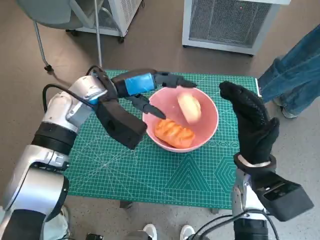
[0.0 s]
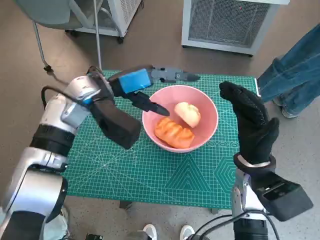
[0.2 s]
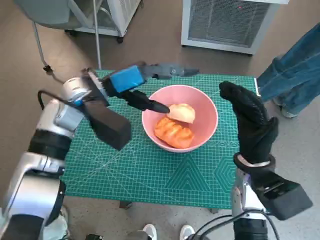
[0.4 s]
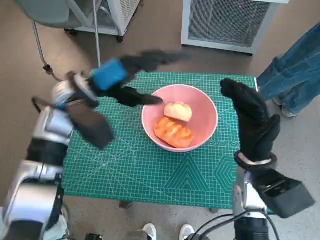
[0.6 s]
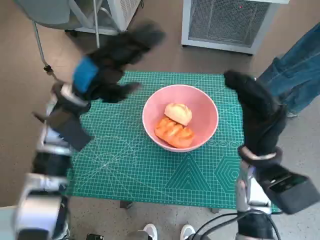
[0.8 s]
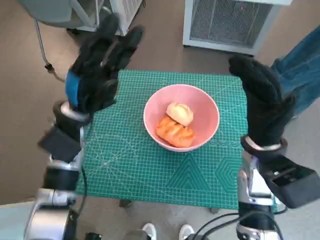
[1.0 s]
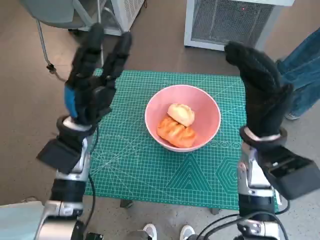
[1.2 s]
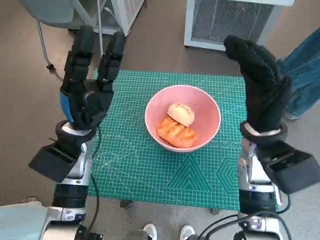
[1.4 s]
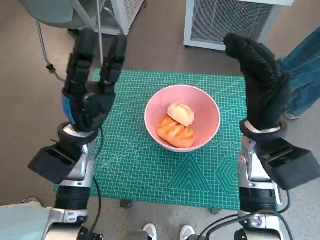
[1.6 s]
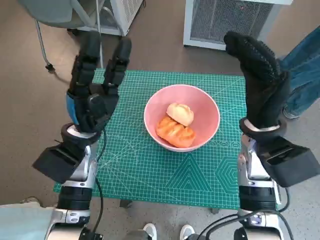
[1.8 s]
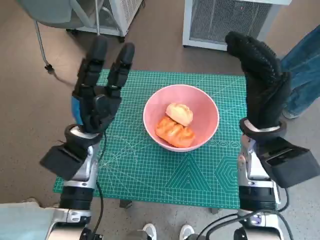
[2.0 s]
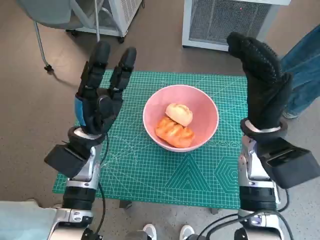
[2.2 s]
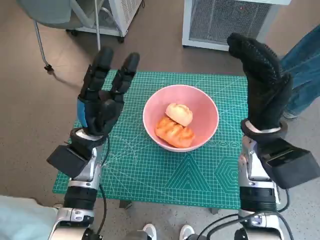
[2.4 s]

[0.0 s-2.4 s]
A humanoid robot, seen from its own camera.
Task of the whole recording: Push the bowl to the center of the table and put the bread into the bowl.
0.0 to 1.2 s: The right hand moves upward, roughly 5 cm, while the left hand goes about 10 cm downward and backward.

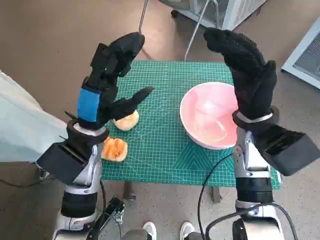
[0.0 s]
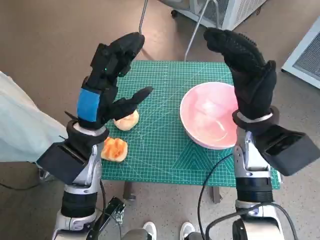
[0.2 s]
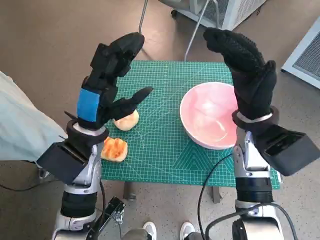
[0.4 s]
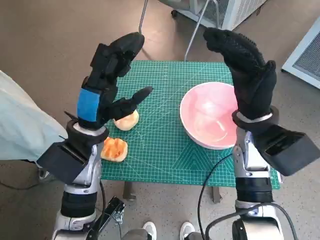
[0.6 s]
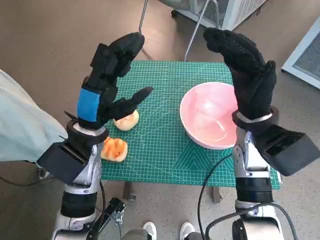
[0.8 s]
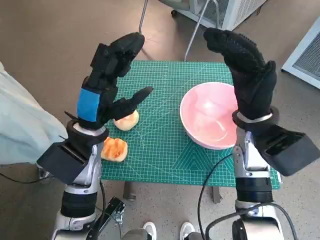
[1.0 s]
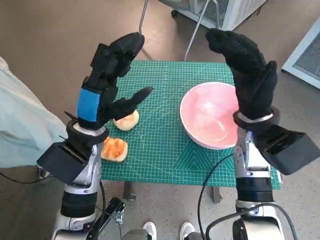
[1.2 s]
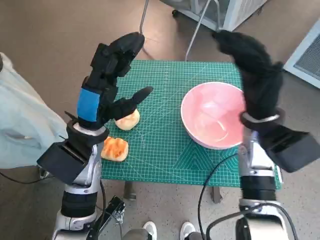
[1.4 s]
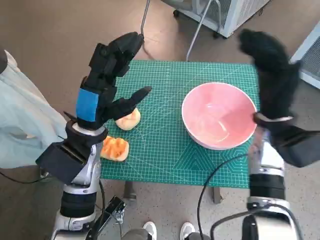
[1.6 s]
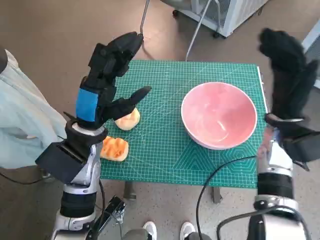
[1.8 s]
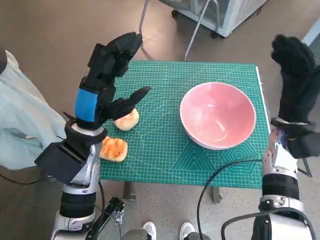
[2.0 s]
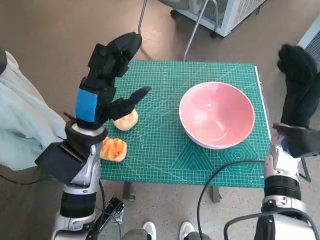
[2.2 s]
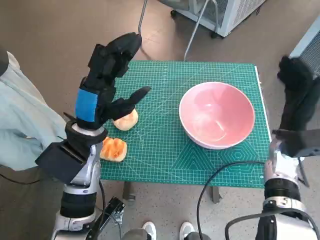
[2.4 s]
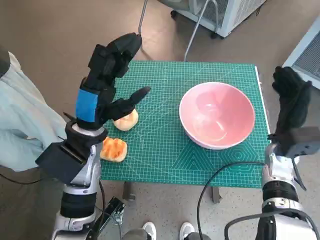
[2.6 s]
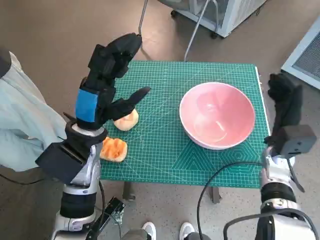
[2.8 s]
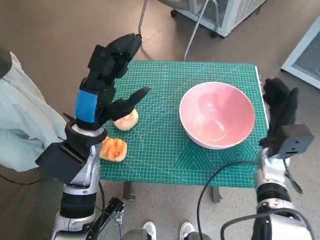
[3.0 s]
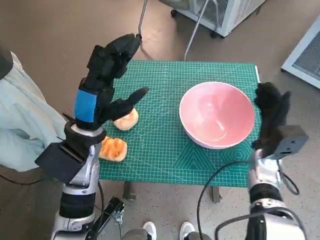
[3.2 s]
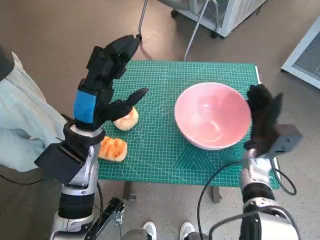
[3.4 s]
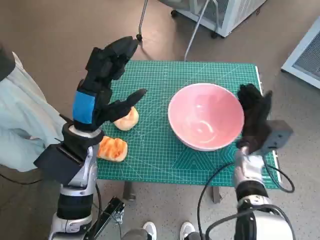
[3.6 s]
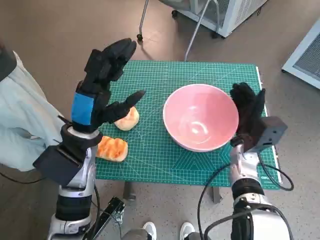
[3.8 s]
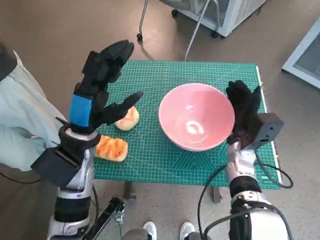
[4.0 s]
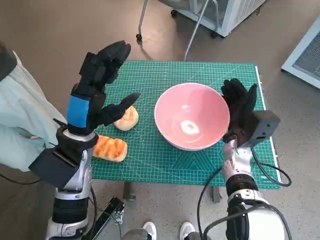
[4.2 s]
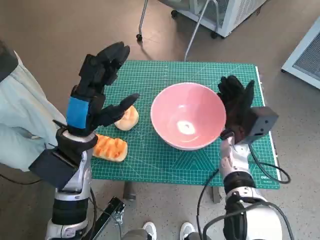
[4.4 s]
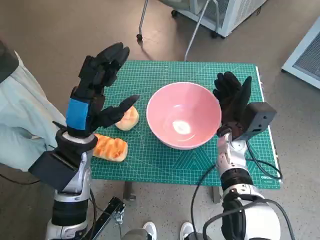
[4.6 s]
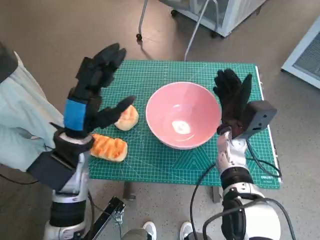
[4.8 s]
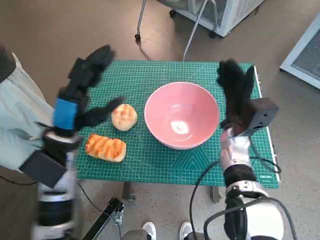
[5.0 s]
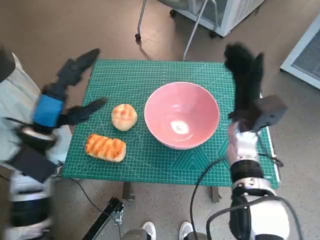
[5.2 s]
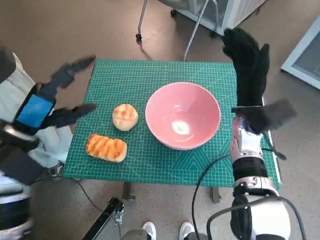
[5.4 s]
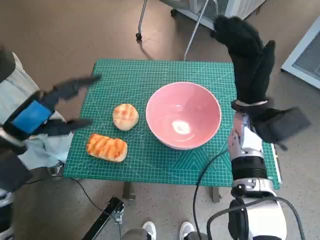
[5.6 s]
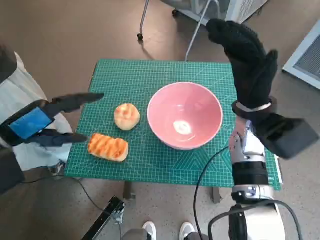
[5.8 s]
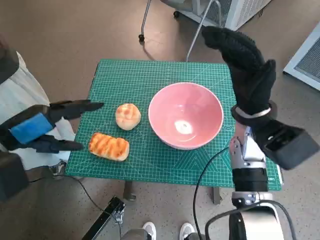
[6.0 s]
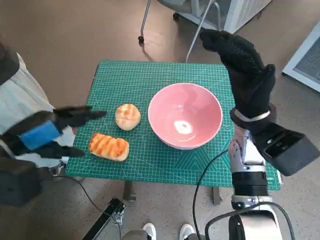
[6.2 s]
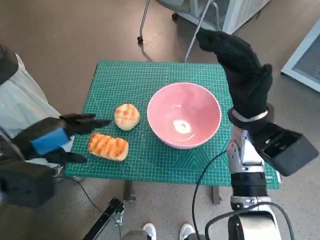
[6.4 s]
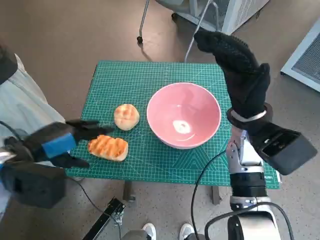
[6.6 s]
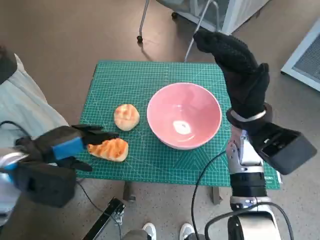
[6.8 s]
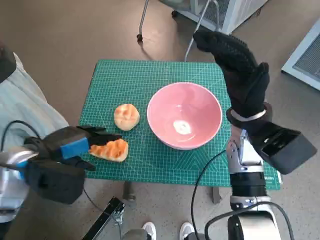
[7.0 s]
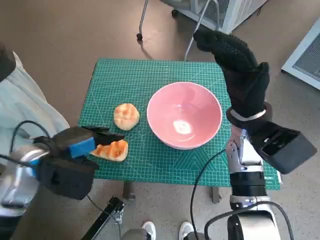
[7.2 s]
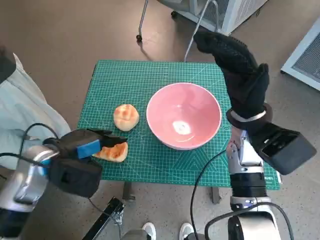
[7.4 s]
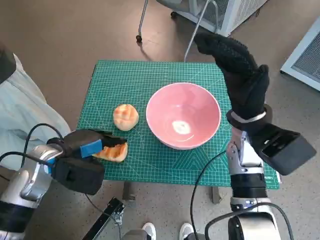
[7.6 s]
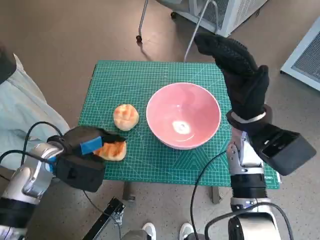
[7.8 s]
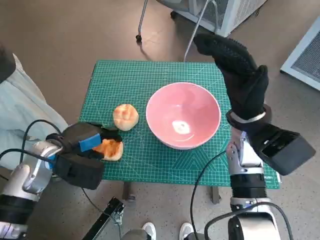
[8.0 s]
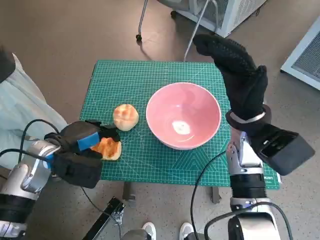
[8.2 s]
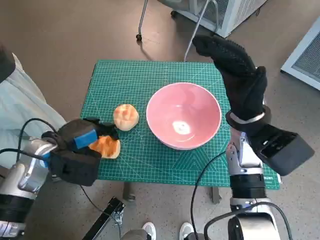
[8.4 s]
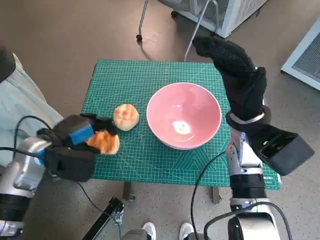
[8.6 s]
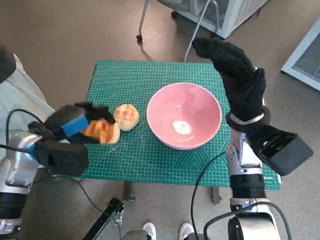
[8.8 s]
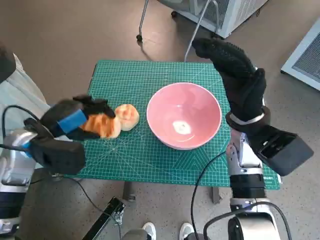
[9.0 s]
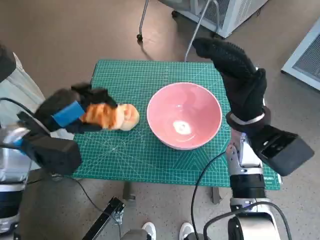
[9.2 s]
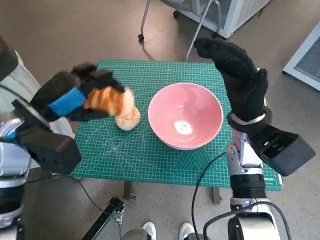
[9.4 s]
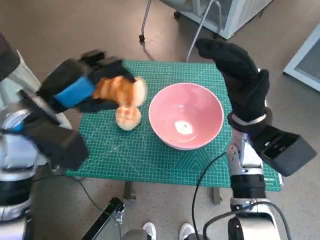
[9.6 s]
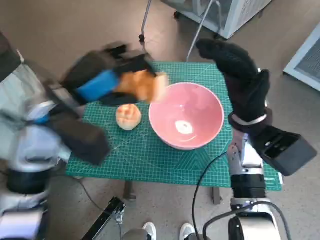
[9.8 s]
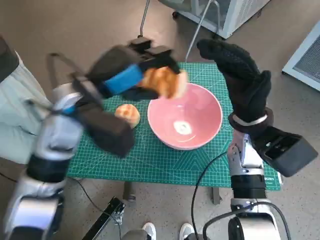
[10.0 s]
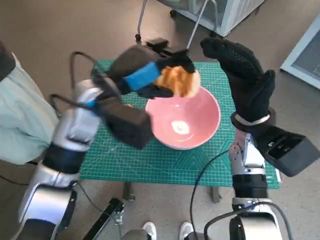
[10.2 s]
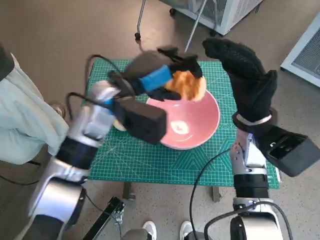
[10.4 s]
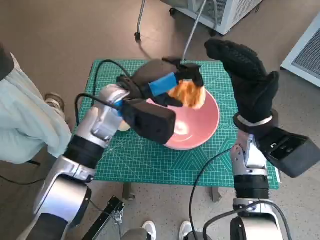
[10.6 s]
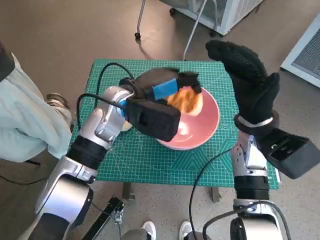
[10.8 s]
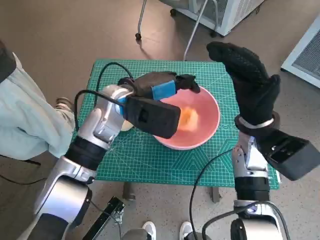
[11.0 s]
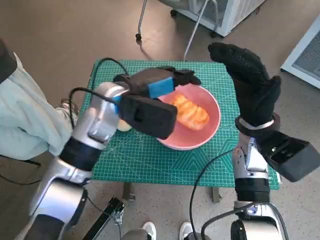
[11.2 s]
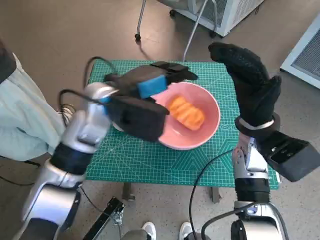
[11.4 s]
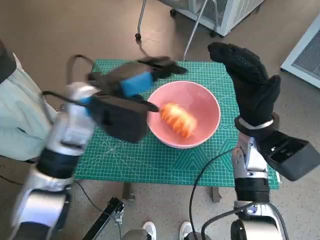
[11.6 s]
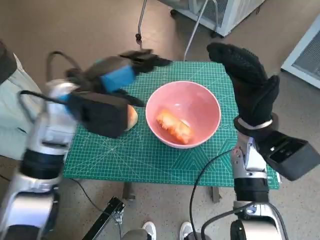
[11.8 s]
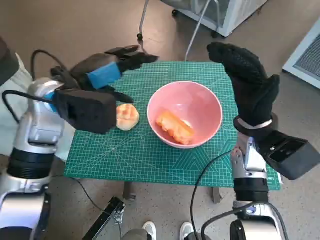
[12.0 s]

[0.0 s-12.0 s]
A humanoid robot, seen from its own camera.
Task of the whole recording: Push the bowl to the center of the table and put the bread into the bowl.
Step, 0.0 to 4.8 s: Move the pink bowl to the center of table with right hand.
Step, 5.0 to 8.0 s: Grasp the long bread with left hand.
Step, 8.2 to 11.2 s: Place the long bread in pink bowl with left hand.
1.6 to 3.0 s: The right hand travels downward by some 10 cm.
3.0 to 4.4 s: The right hand moves to the left, roughly 10 cm.
4.4 to 6.0 s: The left hand moves to the left and upward, roughly 15 cm, while the right hand heads upward, covering about 10 cm.
6.0 to 7.6 s: The left hand goes approximately 10 cm downward.
9.0 to 10.4 s: The left hand is displaced to the right and forward by roughly 15 cm.
10.4 to 12.0 s: The left hand heads to the left, covering roughly 5 cm.

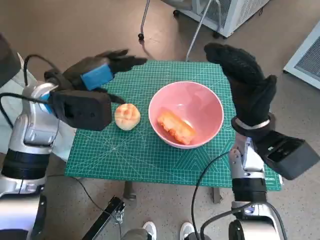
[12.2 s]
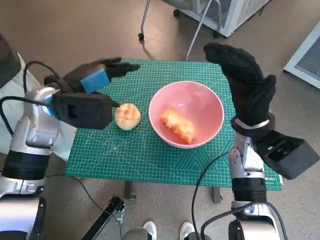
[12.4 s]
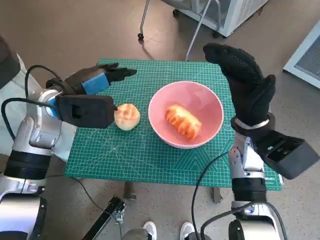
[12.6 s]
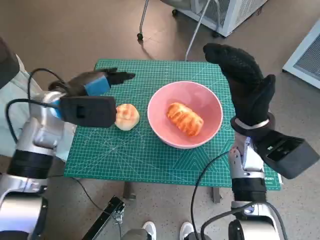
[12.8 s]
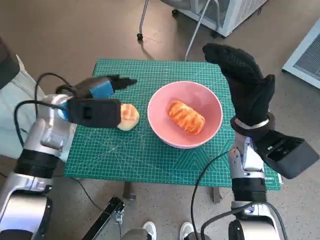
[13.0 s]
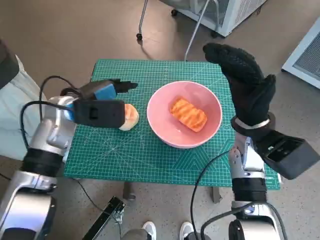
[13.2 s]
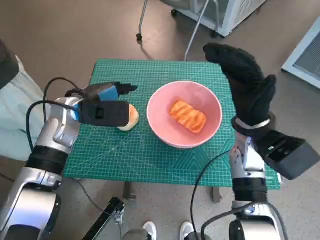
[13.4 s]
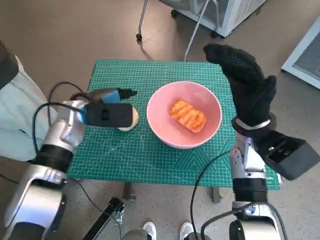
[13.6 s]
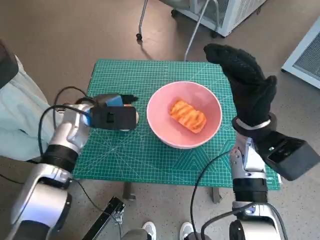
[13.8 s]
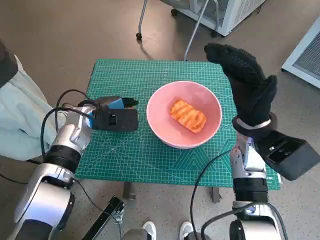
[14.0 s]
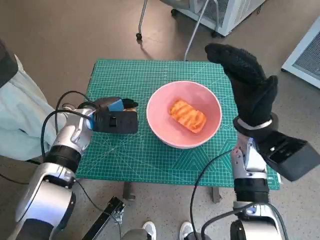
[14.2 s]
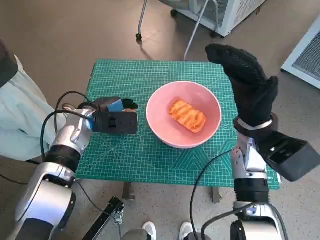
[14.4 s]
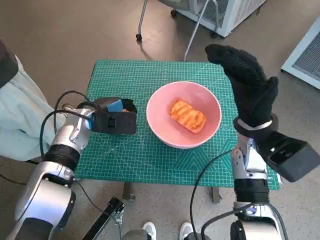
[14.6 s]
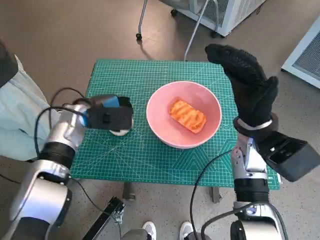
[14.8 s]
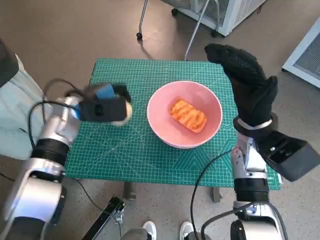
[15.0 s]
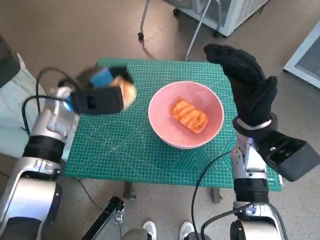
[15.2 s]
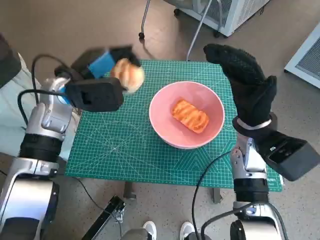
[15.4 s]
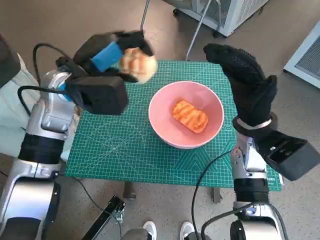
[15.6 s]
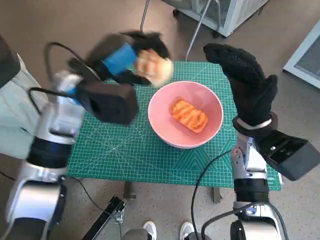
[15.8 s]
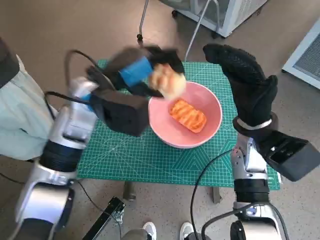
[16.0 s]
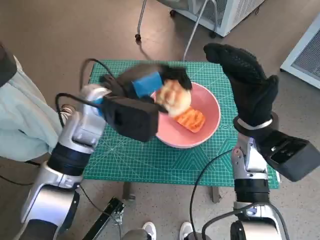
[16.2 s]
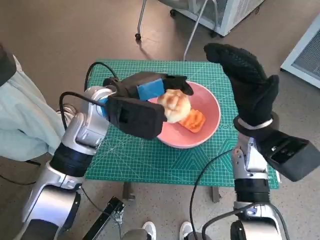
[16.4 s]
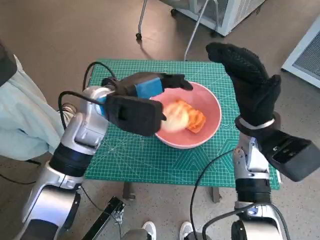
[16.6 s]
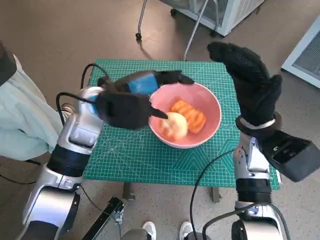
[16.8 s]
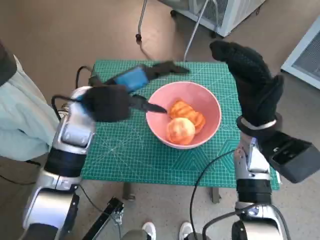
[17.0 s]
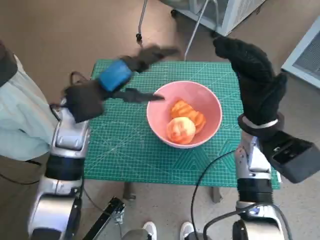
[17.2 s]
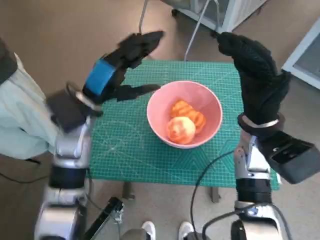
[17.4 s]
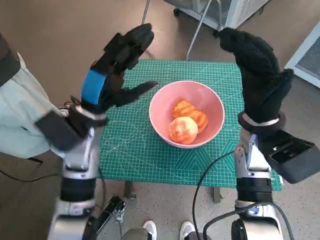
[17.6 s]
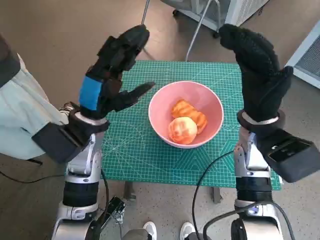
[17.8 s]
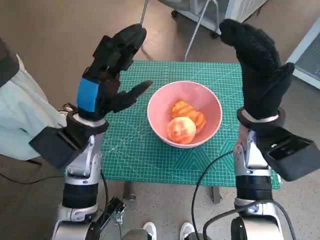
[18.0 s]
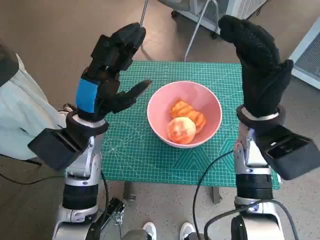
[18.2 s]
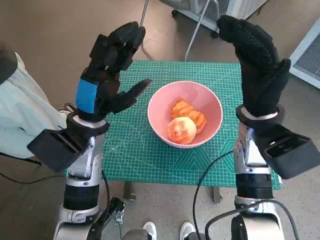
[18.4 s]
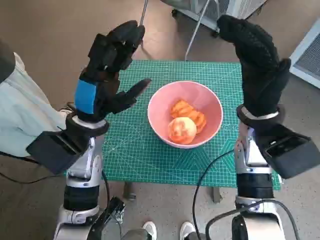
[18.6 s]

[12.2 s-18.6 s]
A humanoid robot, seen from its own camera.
Task of the whole recording: Push the bowl to the center of the table and put the bread into the bowl.
Step, 12.2 to 14.6 s: Grasp the round bread with left hand.
Step, 14.8 to 16.8 s: Place the round bread in pink bowl with left hand.
12.2 to 13.8 s: The left hand shifts some 10 cm downward.
13.8 to 15.4 s: The left hand shifts approximately 5 cm upward.
15.4 to 17.0 s: The left hand goes some 5 cm to the right.
17.0 to 18.6 s: The left hand moves backward, about 5 cm.

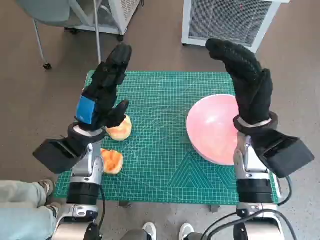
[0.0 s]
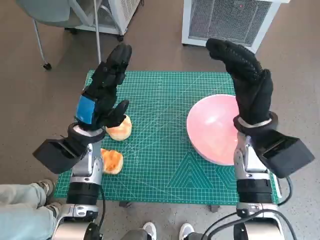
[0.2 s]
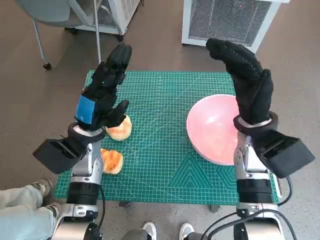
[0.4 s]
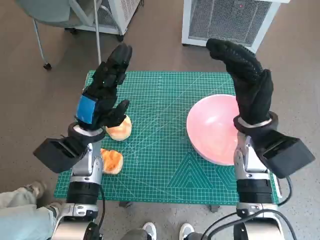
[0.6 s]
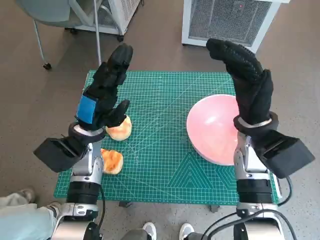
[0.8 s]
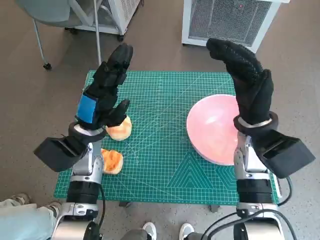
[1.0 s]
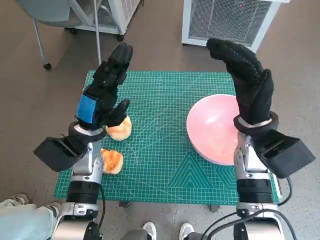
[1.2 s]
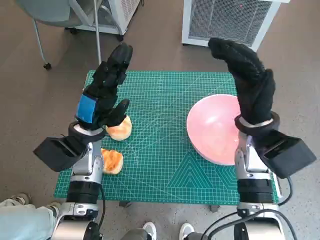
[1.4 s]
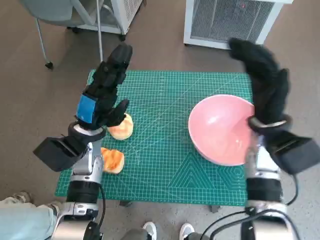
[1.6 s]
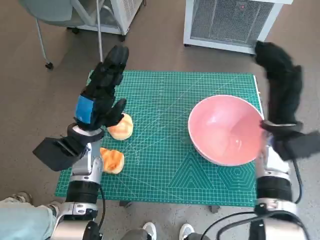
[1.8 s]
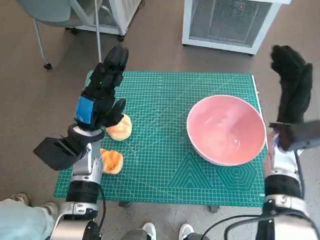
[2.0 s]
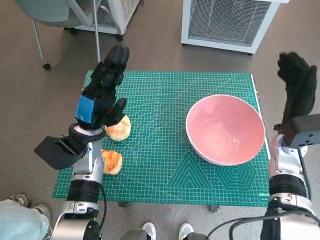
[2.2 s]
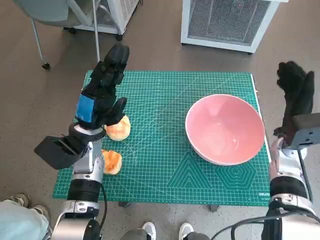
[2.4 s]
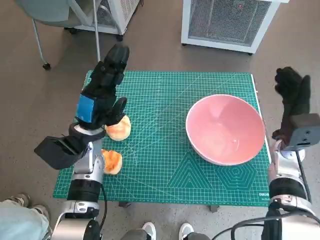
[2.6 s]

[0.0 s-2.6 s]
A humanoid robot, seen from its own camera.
Task of the whole recording: Push the bowl to the center of the table and put the bread into the bowl.
1.2 to 2.6 s: The right hand is displaced to the right and downward by roughly 10 cm.
